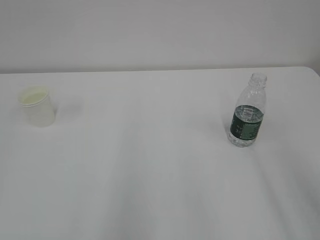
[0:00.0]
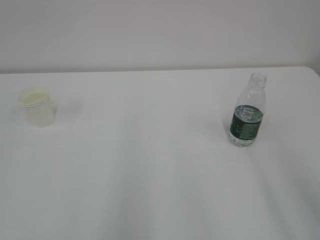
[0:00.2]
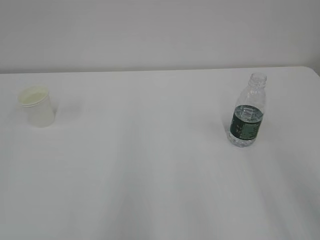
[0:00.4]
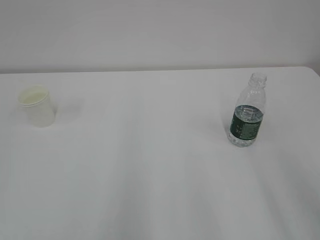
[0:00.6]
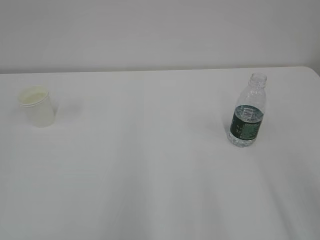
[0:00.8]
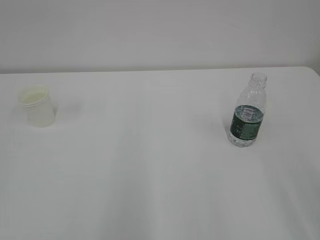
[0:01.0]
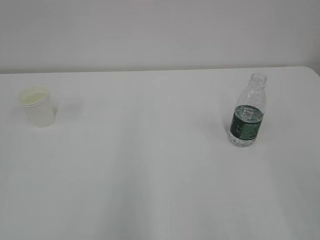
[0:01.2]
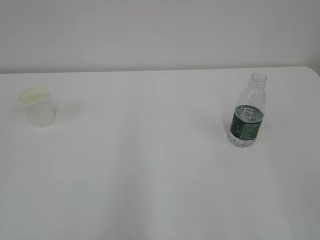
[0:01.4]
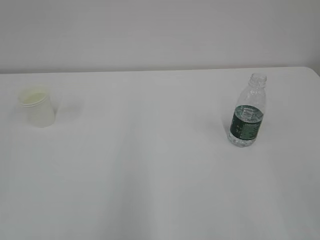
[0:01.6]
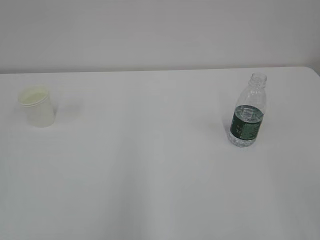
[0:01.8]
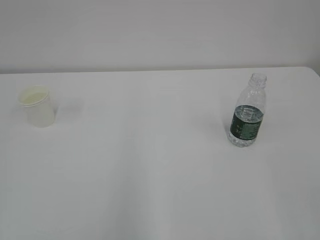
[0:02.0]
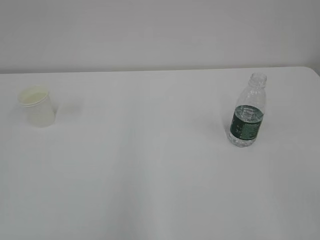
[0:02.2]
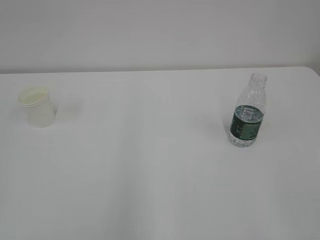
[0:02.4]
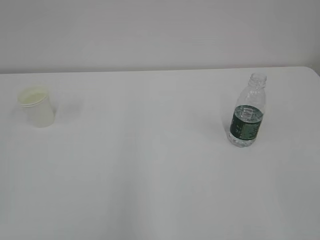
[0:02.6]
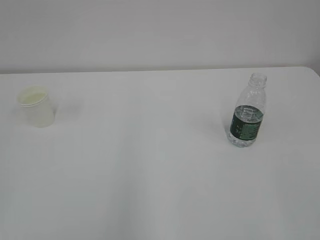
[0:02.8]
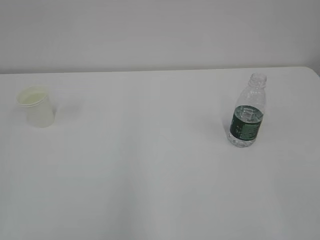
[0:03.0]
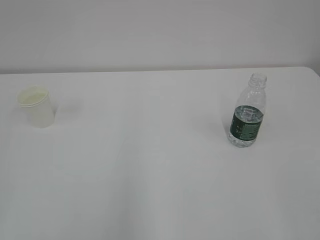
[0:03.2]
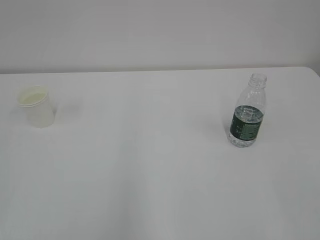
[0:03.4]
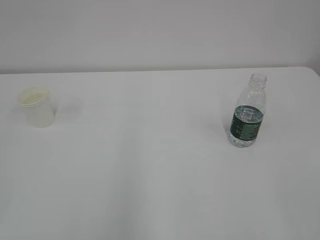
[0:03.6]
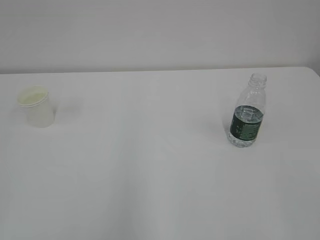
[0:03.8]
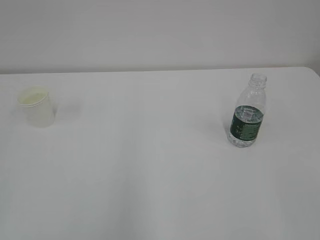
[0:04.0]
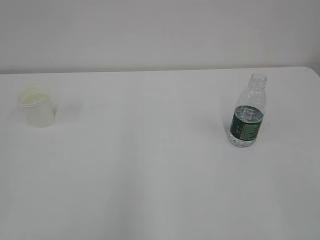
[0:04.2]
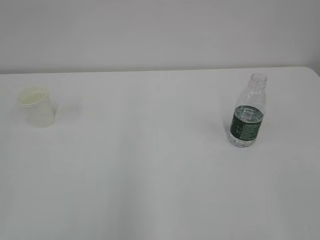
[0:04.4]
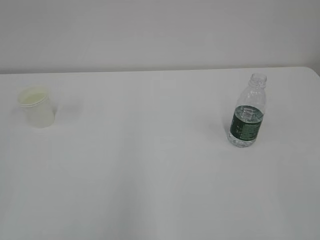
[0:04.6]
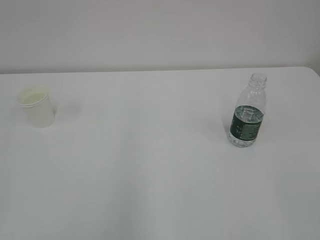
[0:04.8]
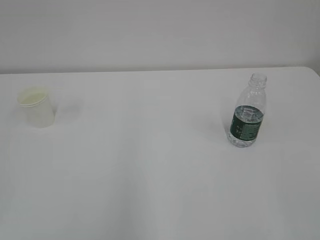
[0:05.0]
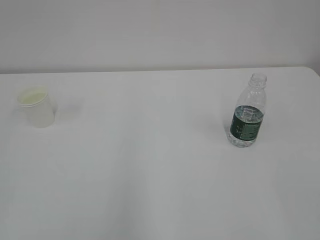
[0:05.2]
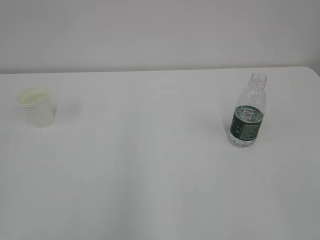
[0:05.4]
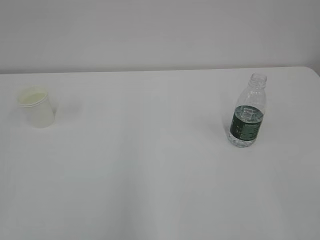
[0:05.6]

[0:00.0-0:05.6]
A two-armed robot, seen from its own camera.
0:02.8 to 0:05.6: Both grippers stay put.

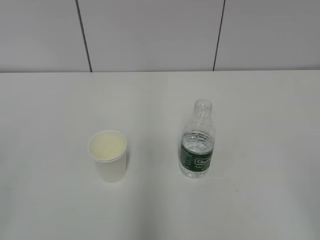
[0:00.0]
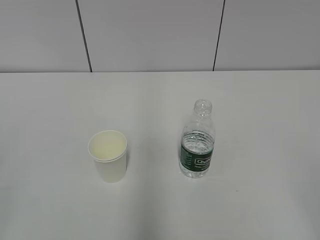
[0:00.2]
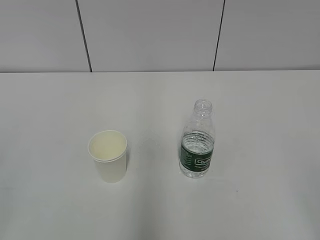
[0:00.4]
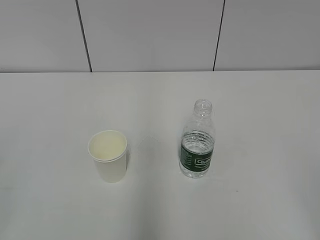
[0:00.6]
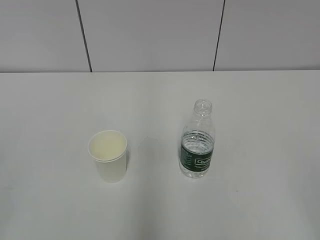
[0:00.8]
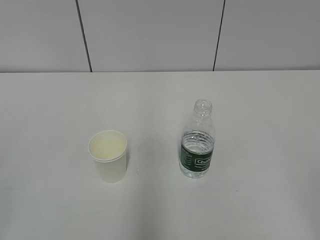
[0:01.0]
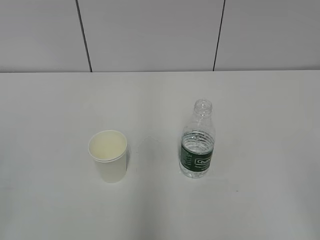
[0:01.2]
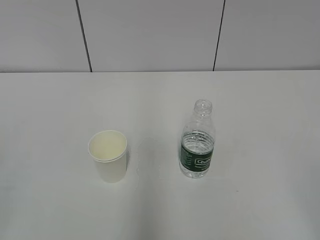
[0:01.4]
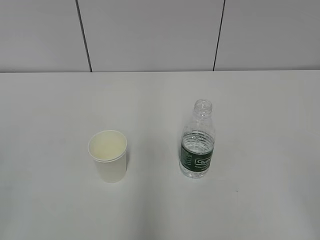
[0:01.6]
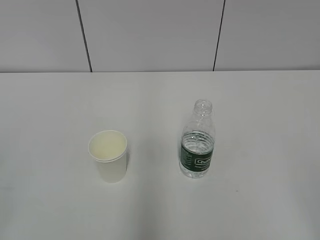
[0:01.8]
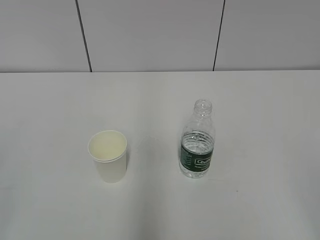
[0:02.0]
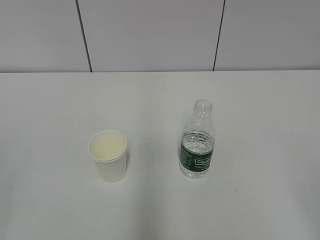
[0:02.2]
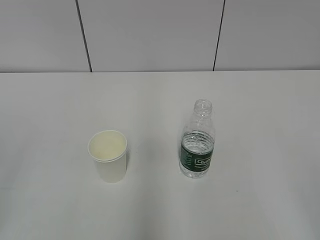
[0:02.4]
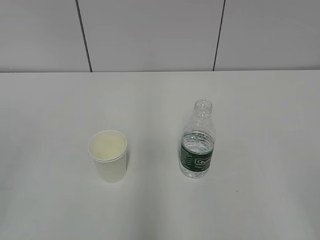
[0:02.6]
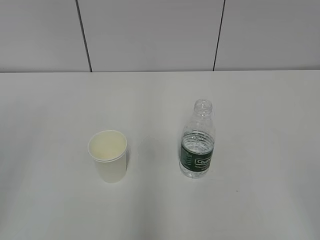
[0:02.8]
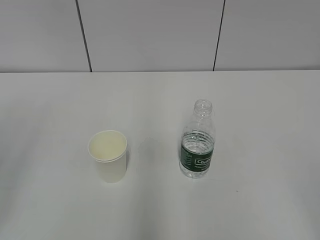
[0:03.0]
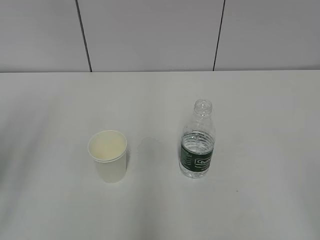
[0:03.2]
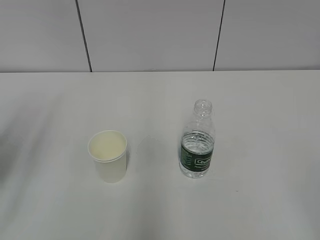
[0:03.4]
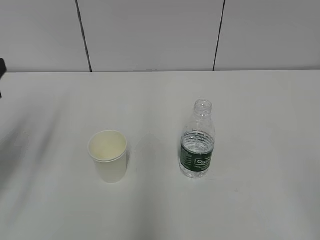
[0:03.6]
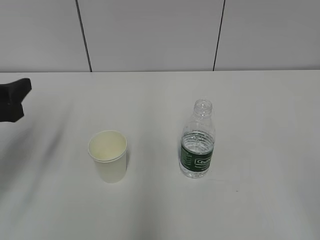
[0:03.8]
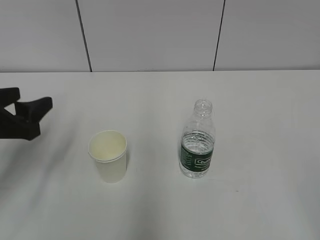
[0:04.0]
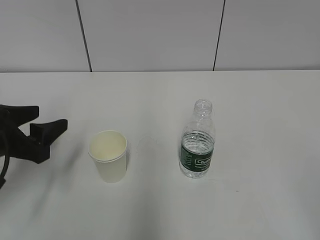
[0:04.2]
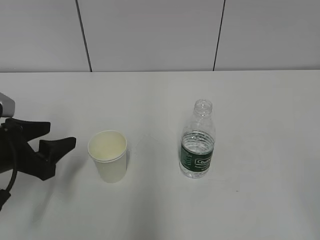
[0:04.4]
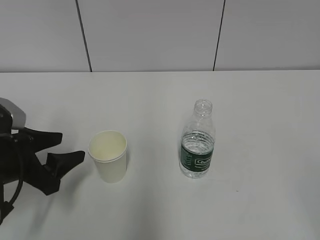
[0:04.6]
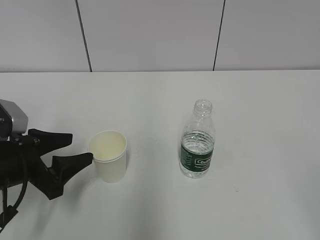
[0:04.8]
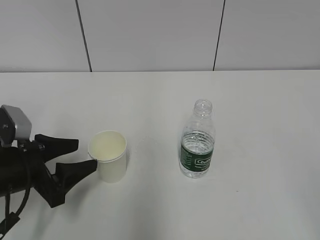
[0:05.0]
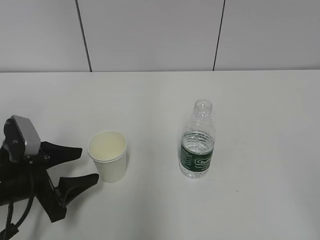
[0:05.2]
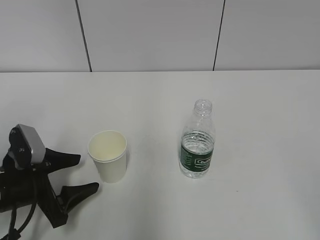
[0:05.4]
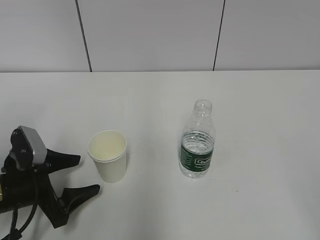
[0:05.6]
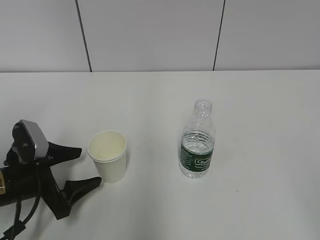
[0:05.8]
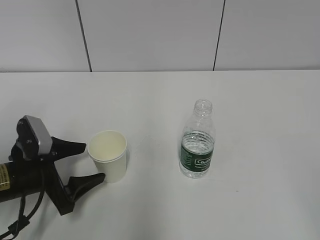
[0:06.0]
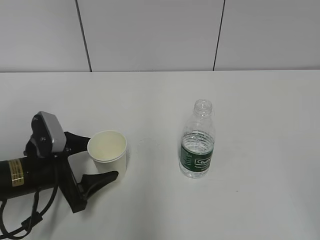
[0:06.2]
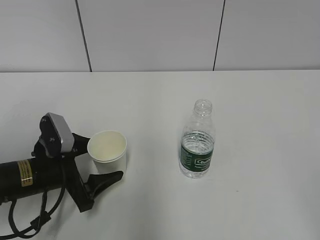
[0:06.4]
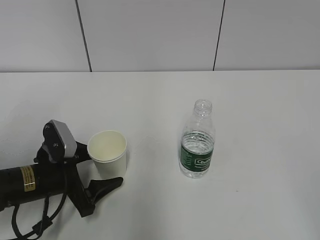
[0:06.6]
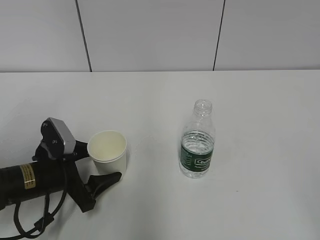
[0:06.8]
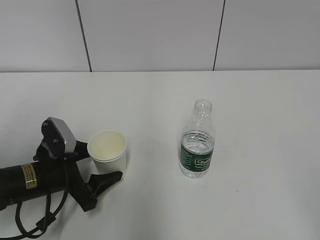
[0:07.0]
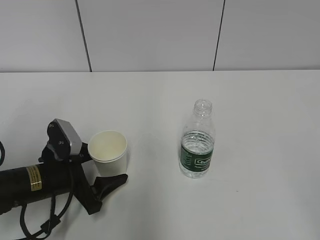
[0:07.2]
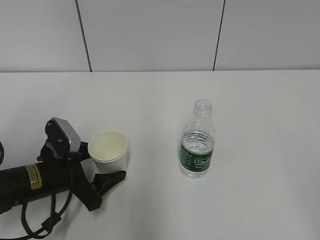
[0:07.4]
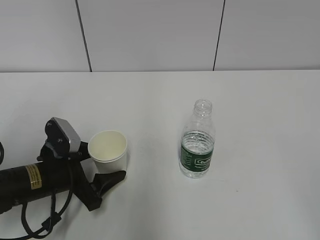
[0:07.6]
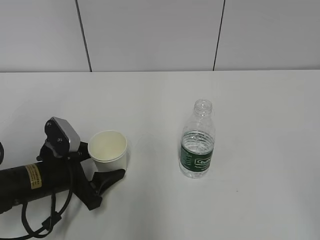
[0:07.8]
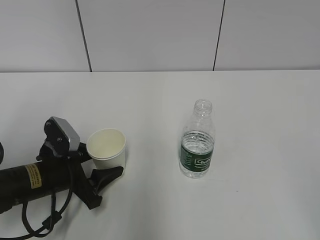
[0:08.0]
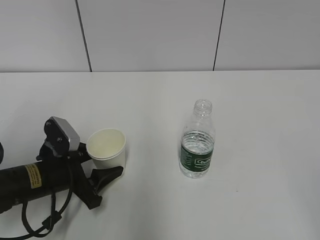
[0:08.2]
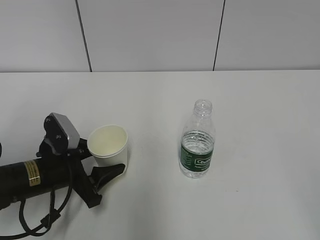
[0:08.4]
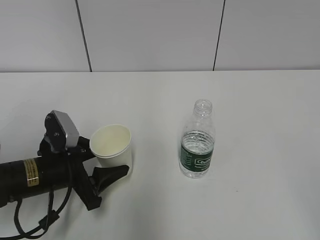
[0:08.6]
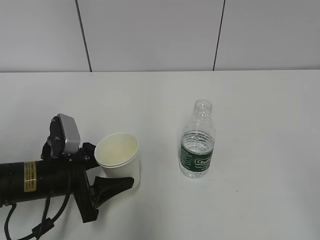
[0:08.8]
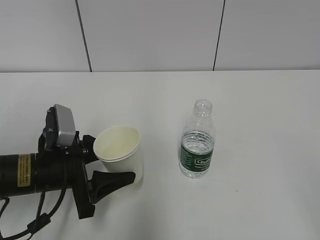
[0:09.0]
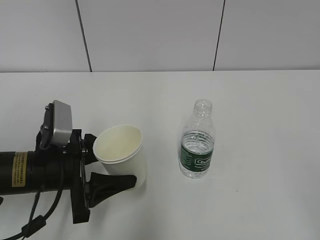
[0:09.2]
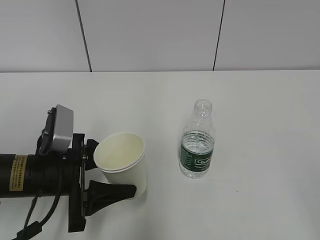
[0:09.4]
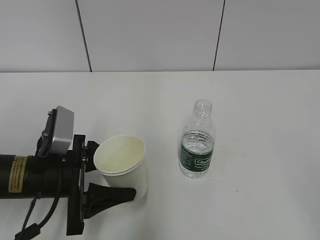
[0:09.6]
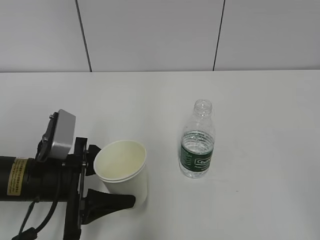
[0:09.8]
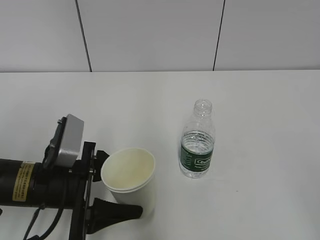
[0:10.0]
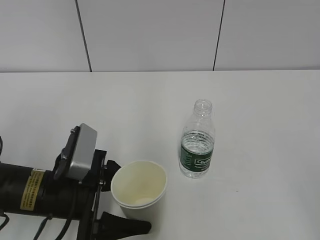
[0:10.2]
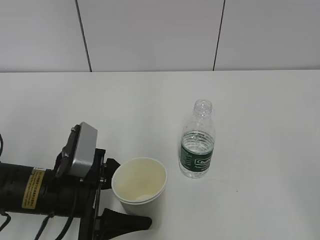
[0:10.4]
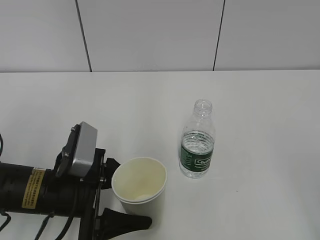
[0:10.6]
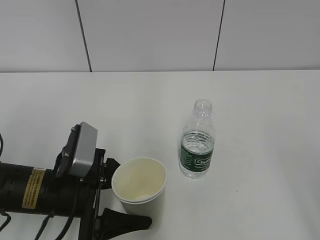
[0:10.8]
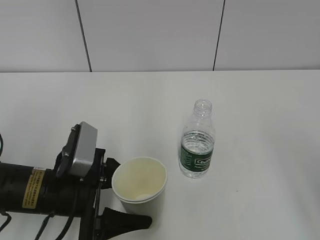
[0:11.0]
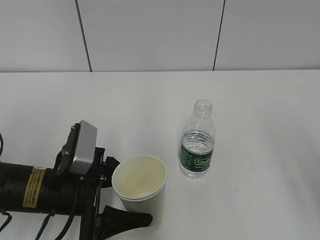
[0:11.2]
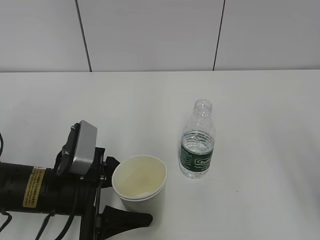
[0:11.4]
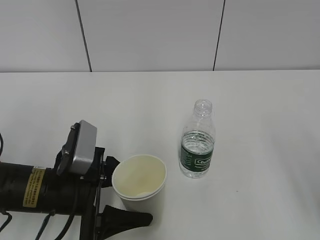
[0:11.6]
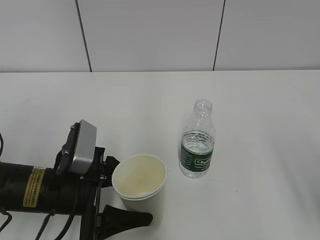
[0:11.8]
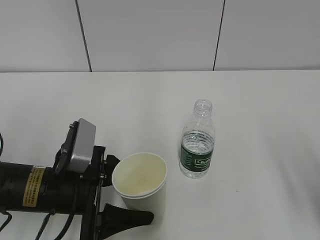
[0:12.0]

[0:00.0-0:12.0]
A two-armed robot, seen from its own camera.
Step, 0:00.0 to 0:06.8: Grab the paper cup with the left hand.
0:03.0 to 0:04.4: The left gripper goes approximately 20 cm downward and forward.
0:04.4 to 0:06.0: The left gripper goes approximately 5 cm downward.
0:06.0 to 0:07.6: The grippers stay close to where they were, moving slightly.
0:07.6 to 0:09.0: The left gripper shifts by about 5 cm, and closes.
0:09.0 to 0:10.4: There are only small adjustments of the grippers.
0:10.4 to 0:12.0: The right gripper moves forward, some 10 cm.

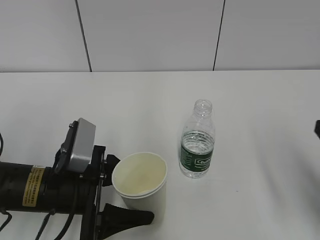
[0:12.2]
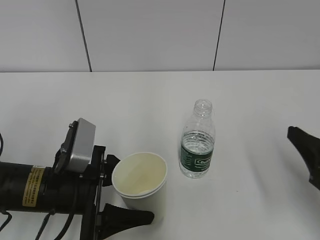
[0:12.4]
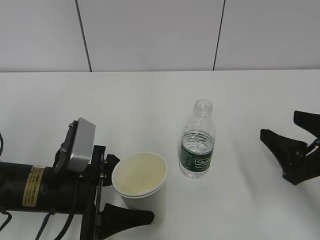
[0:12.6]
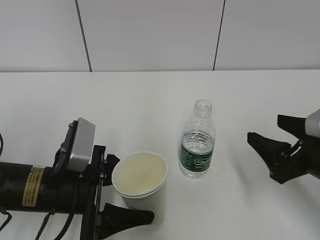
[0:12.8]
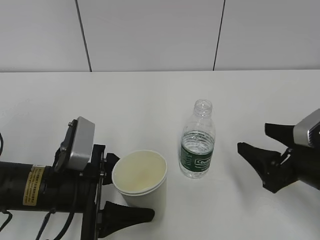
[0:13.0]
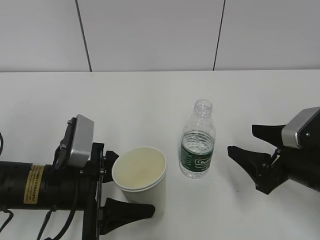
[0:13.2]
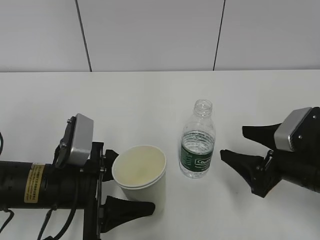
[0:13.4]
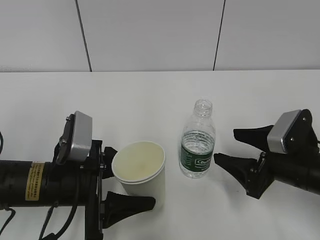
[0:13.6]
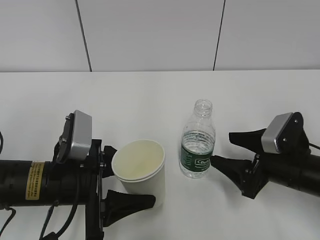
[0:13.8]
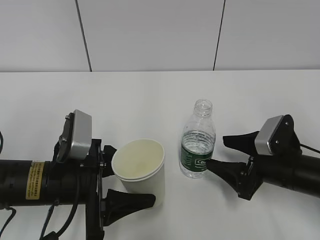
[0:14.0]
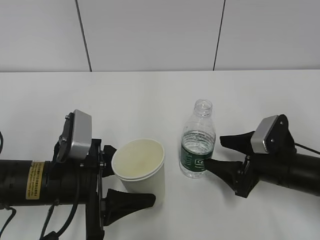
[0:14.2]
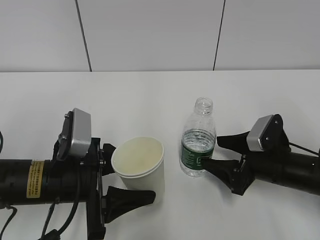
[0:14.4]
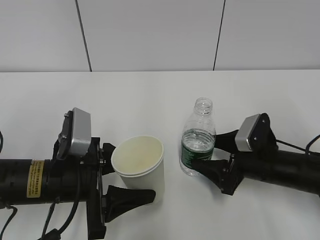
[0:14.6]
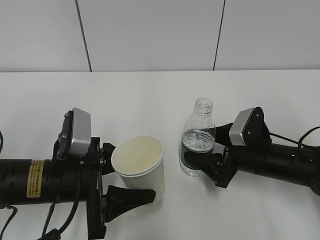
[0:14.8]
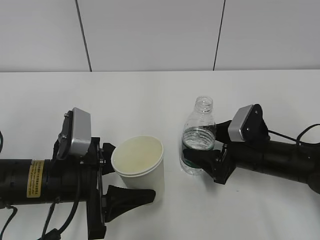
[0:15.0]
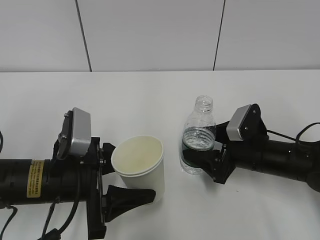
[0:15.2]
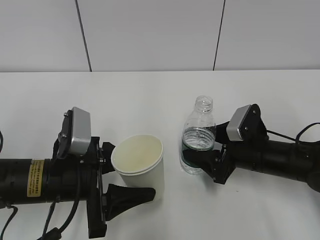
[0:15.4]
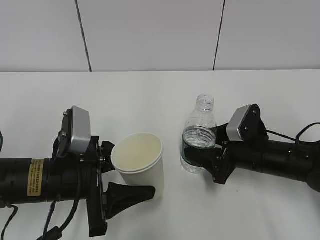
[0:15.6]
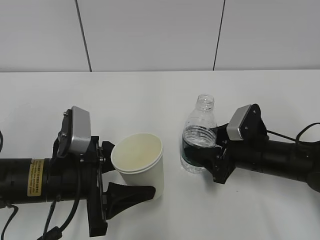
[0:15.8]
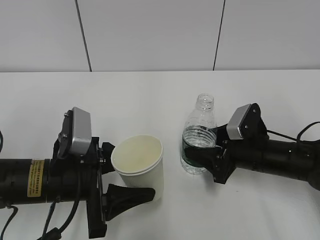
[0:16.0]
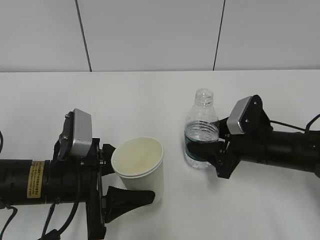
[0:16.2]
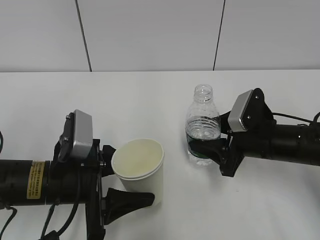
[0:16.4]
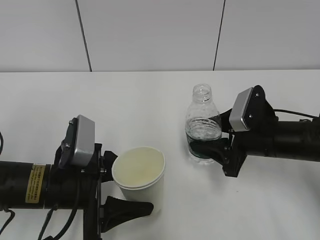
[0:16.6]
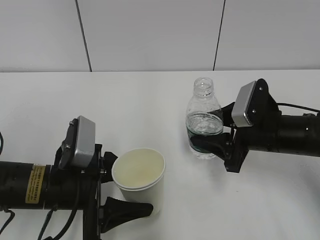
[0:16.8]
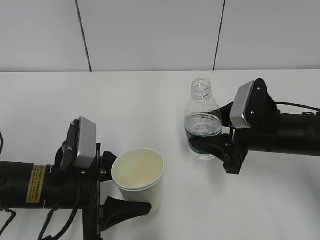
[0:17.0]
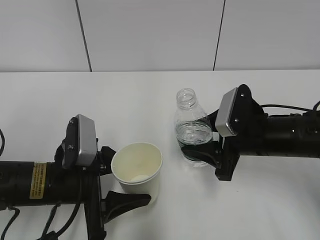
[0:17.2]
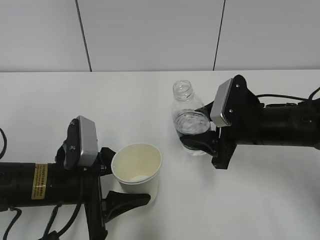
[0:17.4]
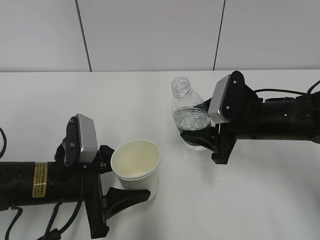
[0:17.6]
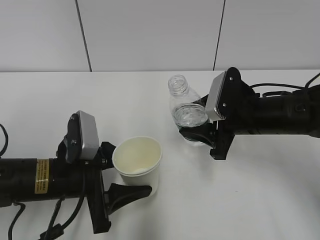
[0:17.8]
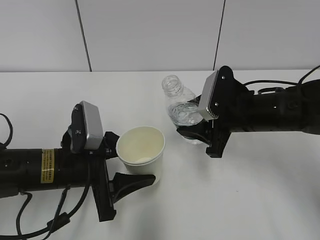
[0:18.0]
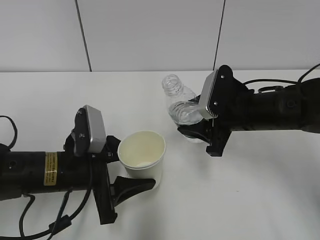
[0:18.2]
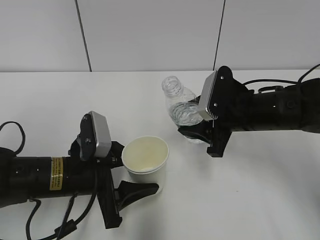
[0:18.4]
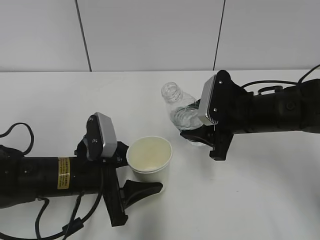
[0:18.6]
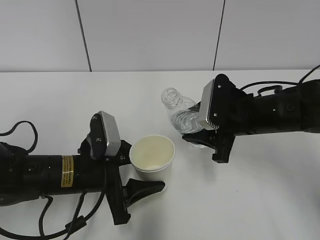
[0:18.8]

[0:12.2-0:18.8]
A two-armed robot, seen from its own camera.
0:12.2 to 0:13.8: The right gripper moves forward and downward, some 15 cm.
0:13.8 to 0:15.4: The right gripper is displaced forward by roughly 5 cm.
0:15.4 to 0:17.2: The right gripper goes some 5 cm upward, and closes its fingers.
